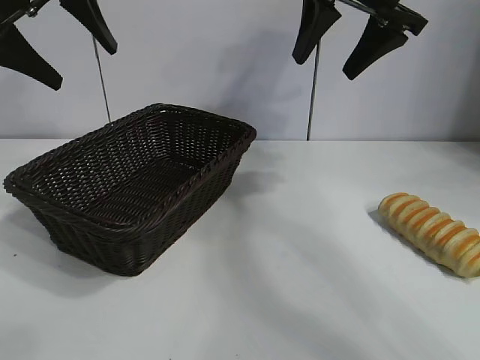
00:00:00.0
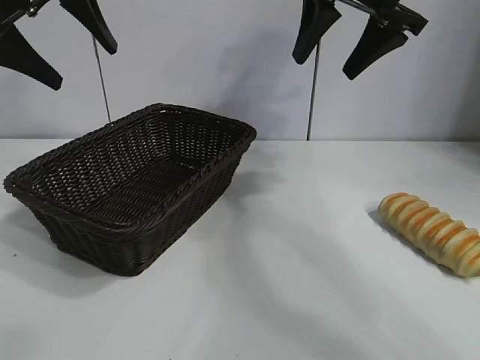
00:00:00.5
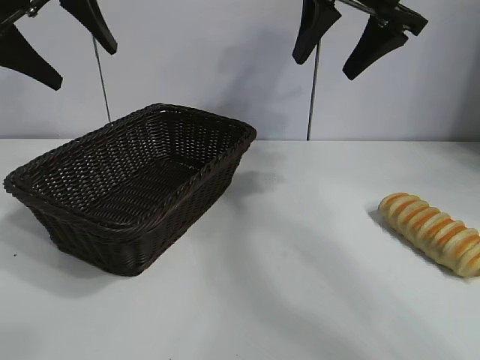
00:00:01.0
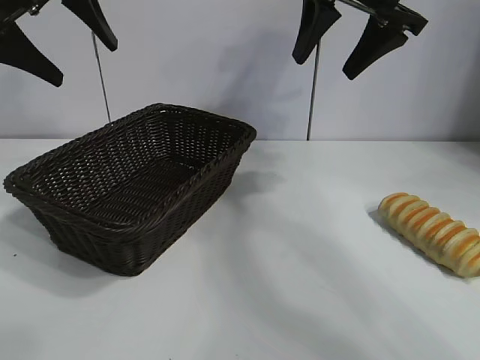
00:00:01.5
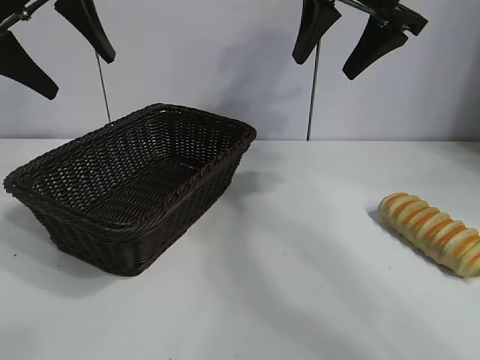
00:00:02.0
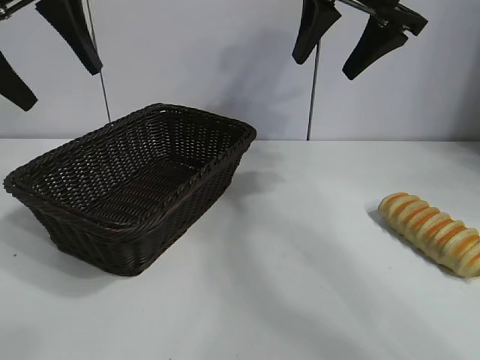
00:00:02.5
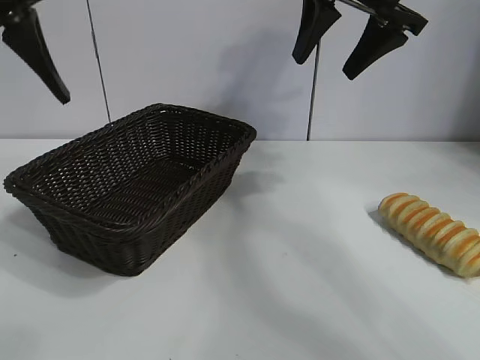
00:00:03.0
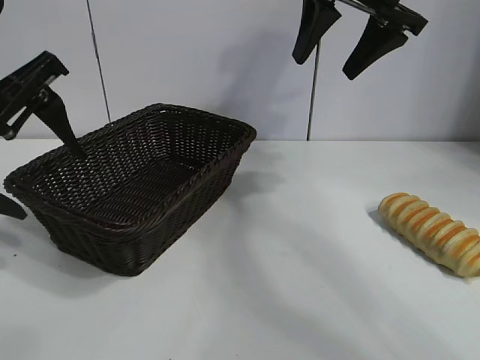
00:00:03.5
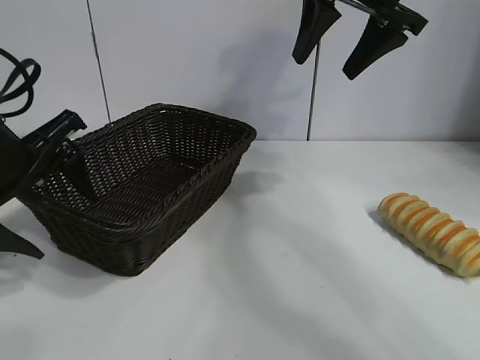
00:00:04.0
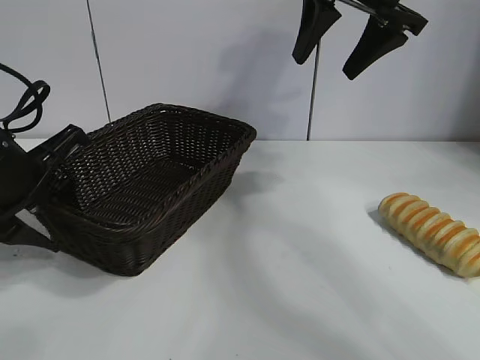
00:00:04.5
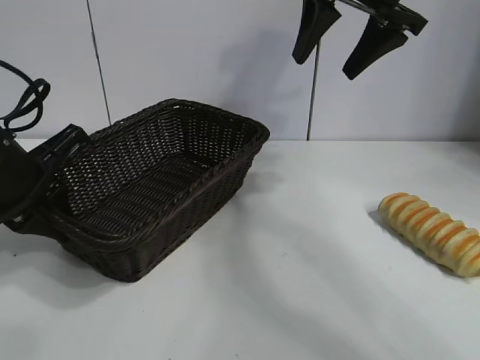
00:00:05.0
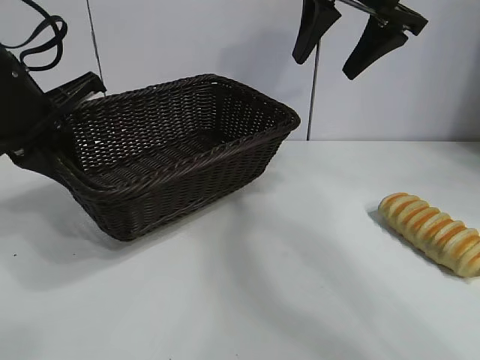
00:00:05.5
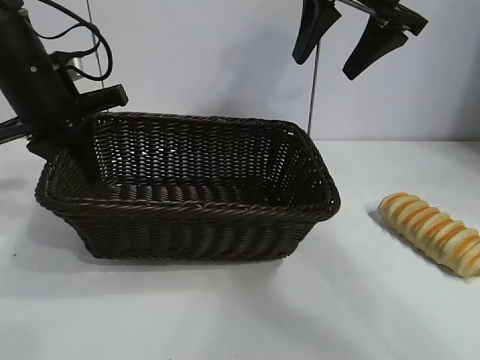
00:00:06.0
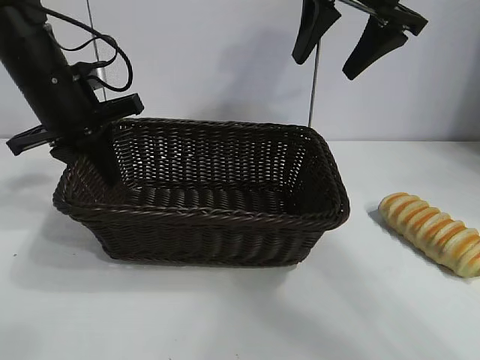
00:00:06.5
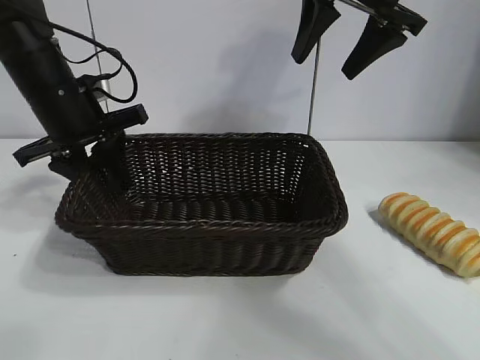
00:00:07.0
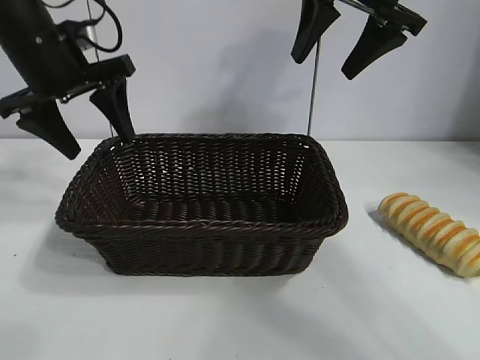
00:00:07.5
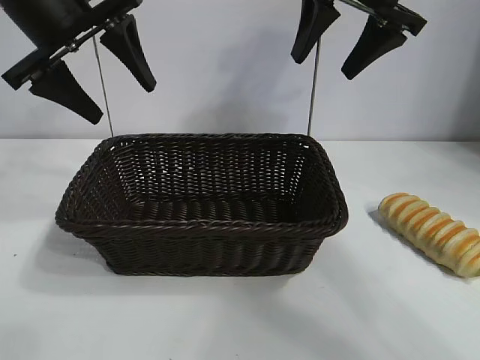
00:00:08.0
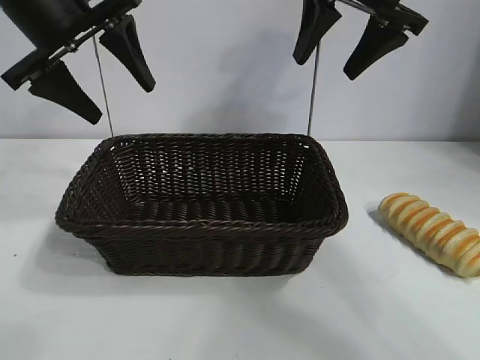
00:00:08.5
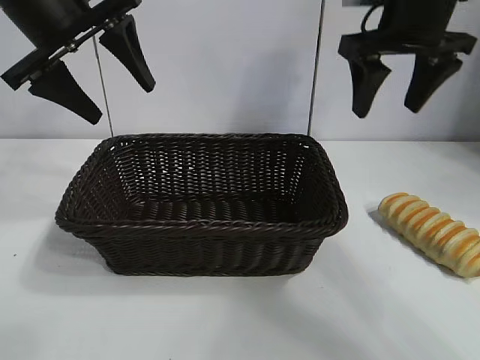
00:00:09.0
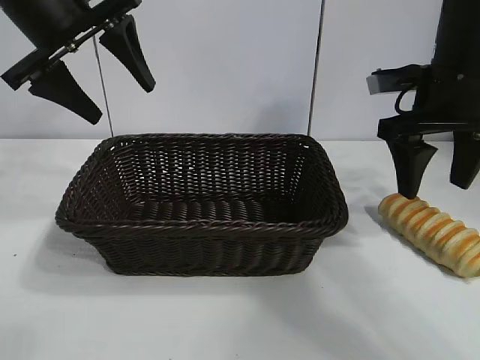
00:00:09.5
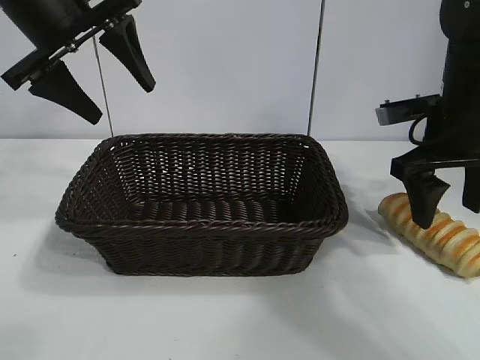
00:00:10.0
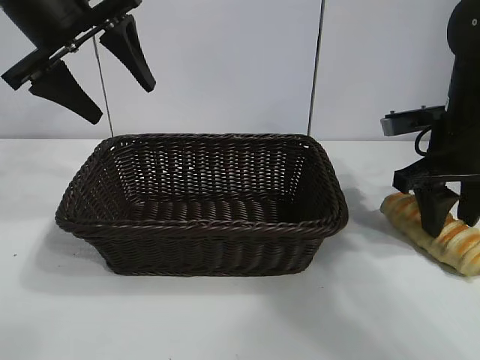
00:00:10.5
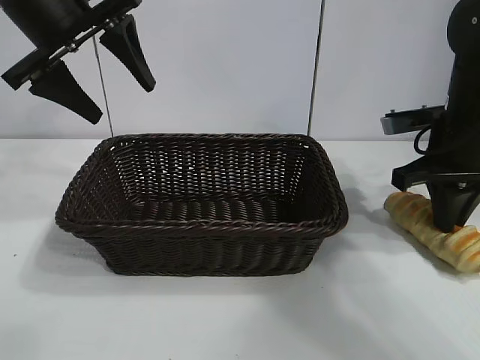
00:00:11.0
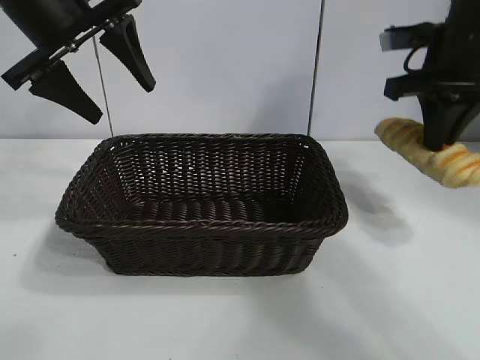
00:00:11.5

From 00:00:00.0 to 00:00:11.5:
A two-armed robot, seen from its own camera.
Task of the whole recording: pick up the long bread and put it into the basket.
Step, from 00:00:01.5 to 00:00:04.5: Grasp the basket with the left gripper.
Step, from 00:00:05.0 to 00:00:07.0: Place the basket in the center of the table with the left gripper.
Step, from 00:00:07.5 to 00:00:10.5: Grasp the long bread with right gripper.

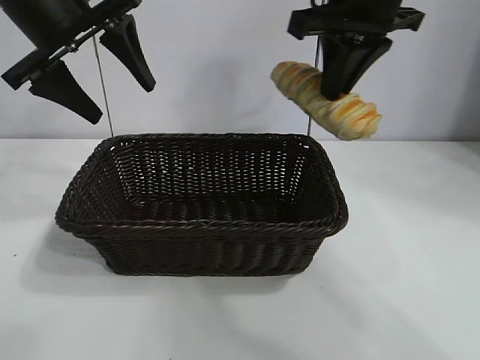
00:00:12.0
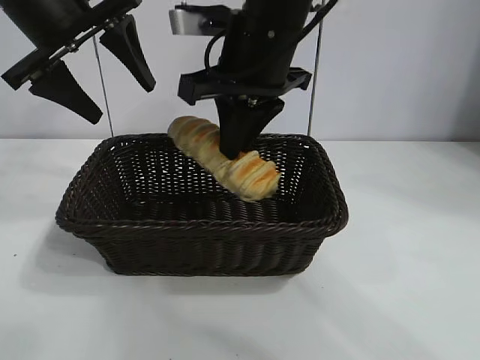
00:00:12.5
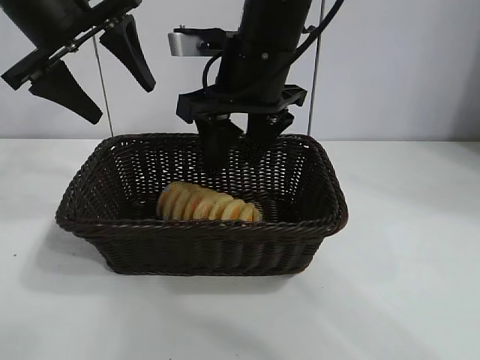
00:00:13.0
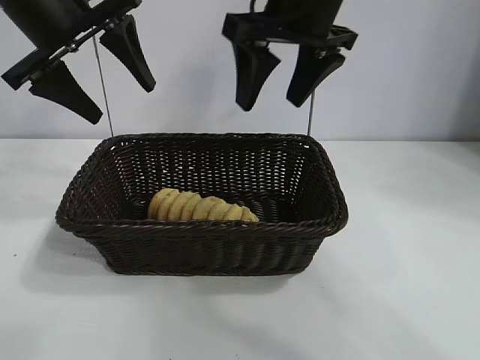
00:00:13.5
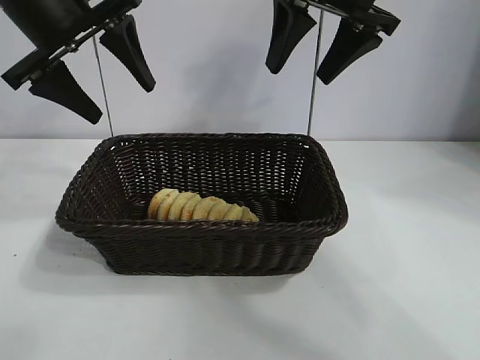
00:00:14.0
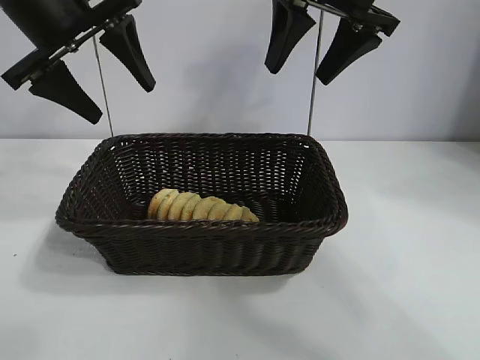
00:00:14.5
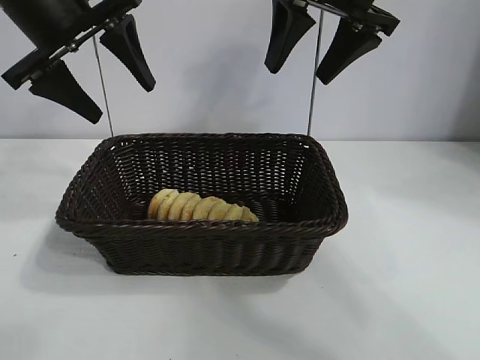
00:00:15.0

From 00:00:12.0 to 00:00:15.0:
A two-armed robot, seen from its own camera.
Task of the whole recording: pick up the long bread and put it into the basket.
Step, from 00:00:12.0 to 00:00:13.0: Place the long bread in the basket with right gripper.

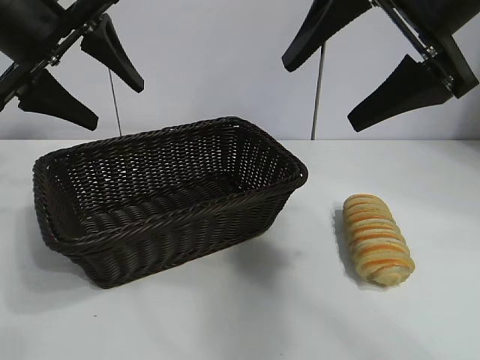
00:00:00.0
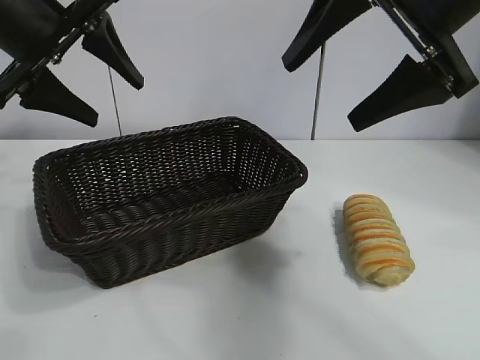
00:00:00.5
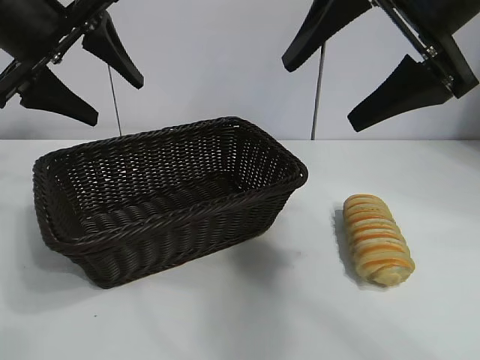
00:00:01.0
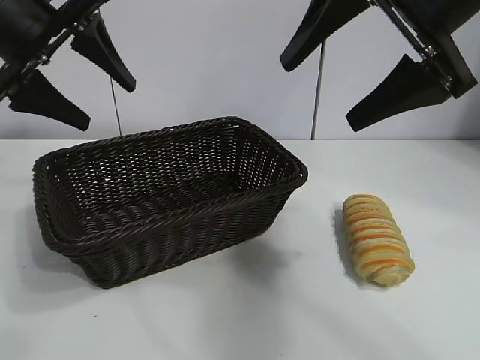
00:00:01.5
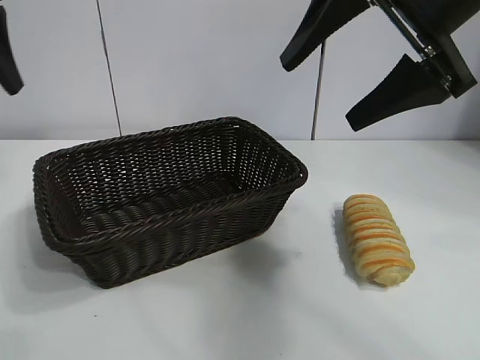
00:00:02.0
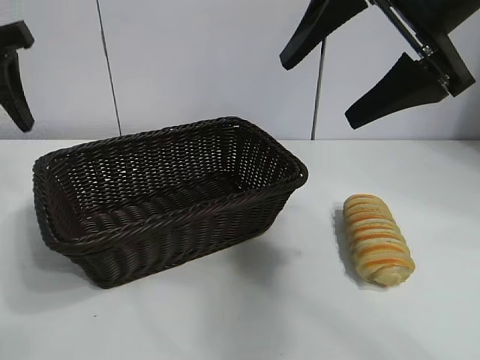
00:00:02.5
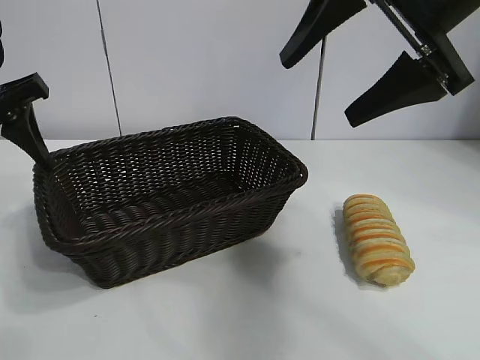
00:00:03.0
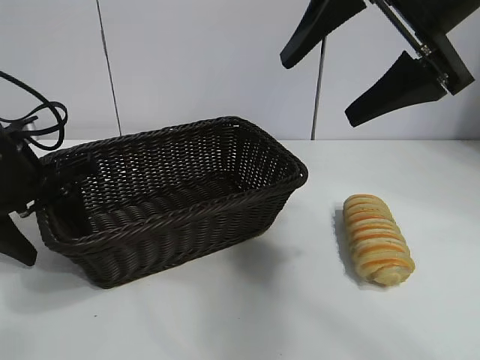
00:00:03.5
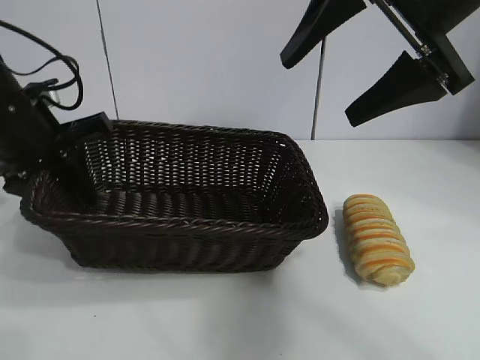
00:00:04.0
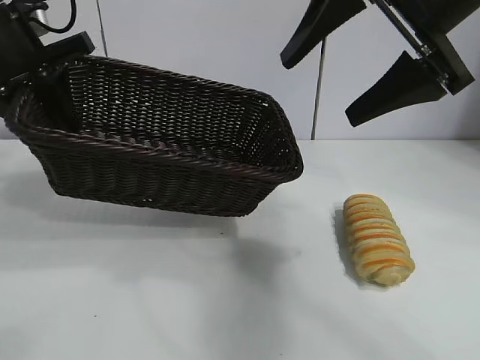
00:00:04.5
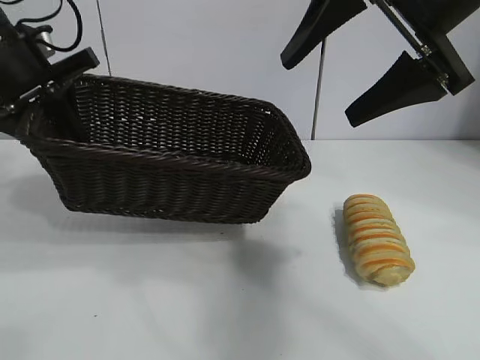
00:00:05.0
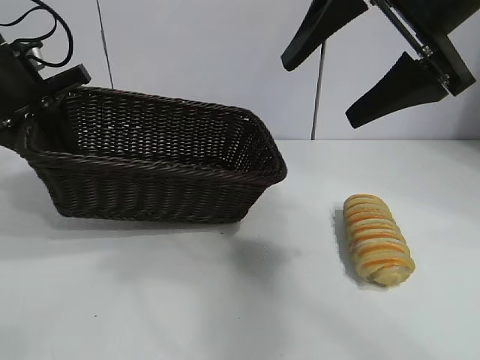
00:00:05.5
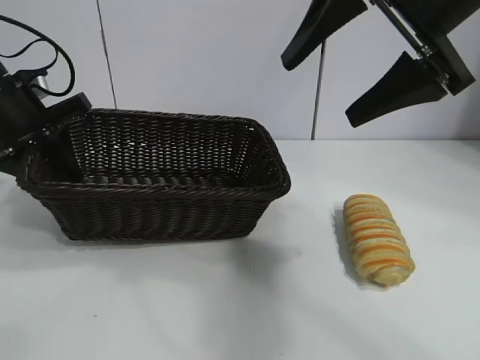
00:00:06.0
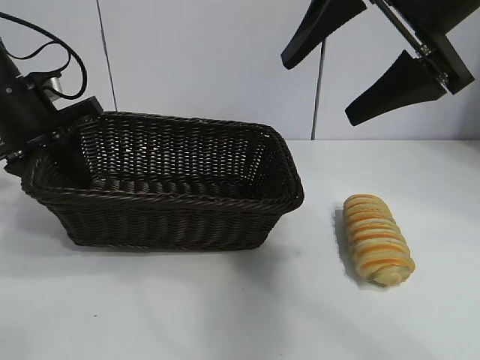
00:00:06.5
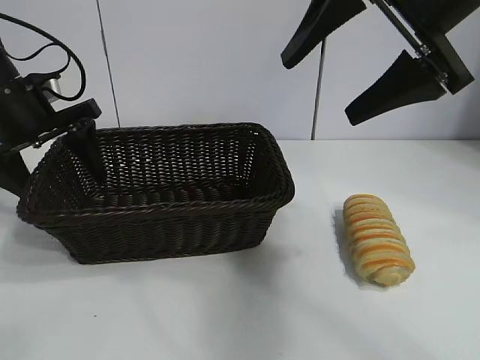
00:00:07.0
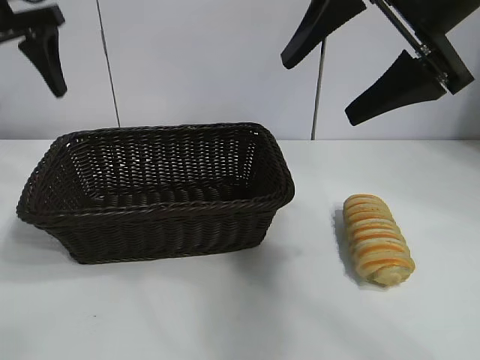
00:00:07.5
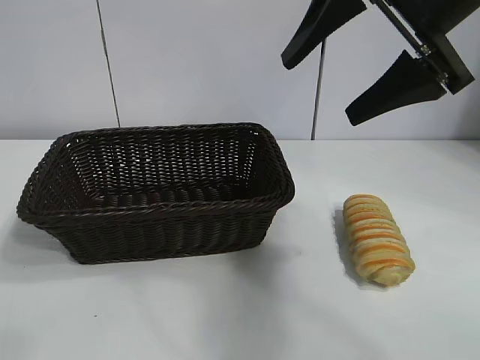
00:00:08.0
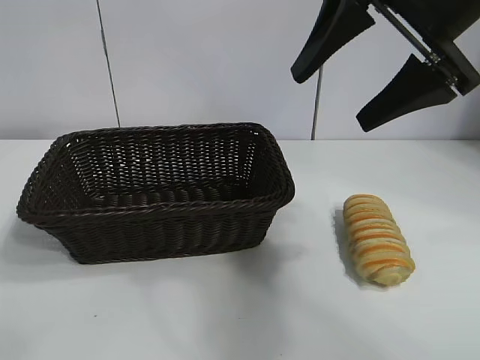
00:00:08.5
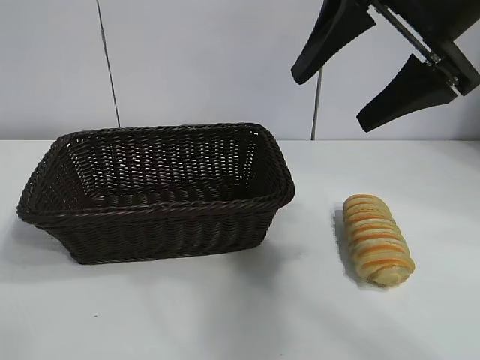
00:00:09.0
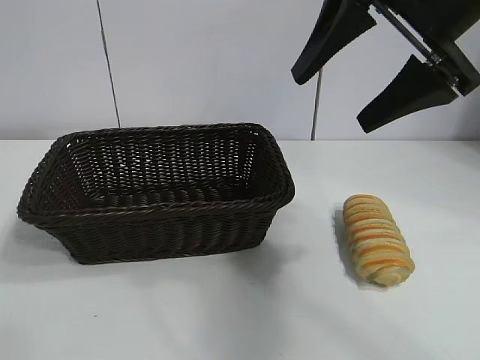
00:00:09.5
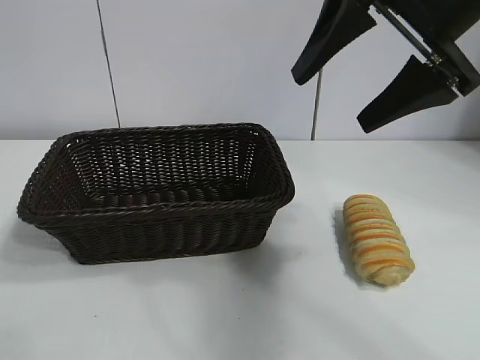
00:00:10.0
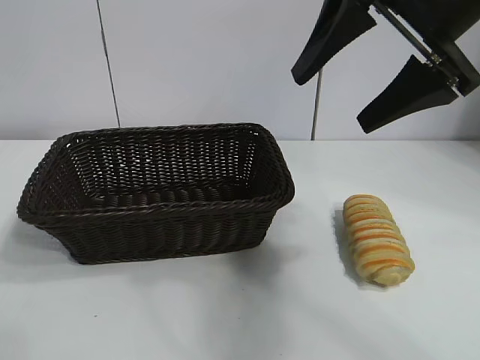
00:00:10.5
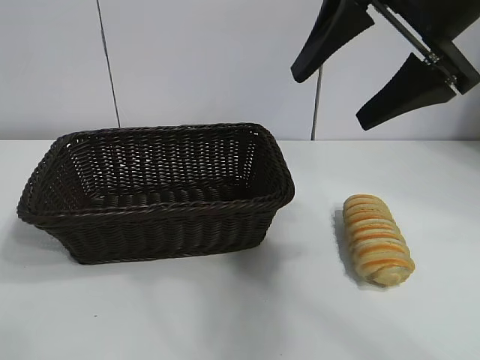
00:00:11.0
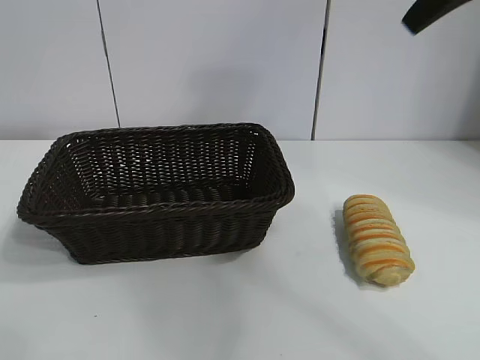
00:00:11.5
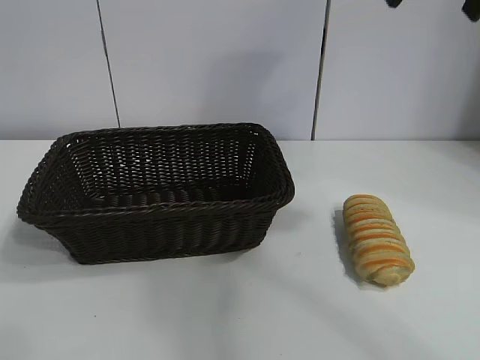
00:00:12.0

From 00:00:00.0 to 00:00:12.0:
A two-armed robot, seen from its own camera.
Task of the whole recording: pick up the long bread and put it into the basket.
Step, from 00:00:01.5 to 00:00:03.5: Grasp the basket with the left gripper.
Step, from 00:00:04.0 to 00:00:06.5: Place the basket in the center of the table with the left gripper.
